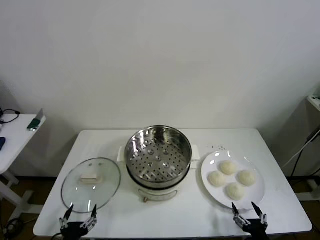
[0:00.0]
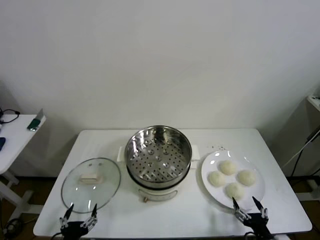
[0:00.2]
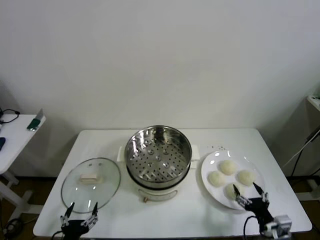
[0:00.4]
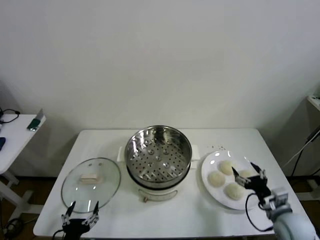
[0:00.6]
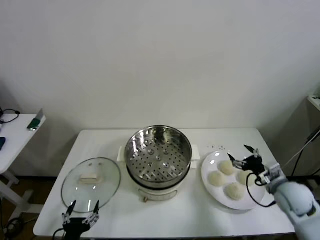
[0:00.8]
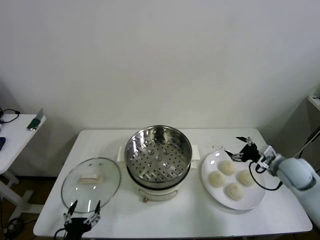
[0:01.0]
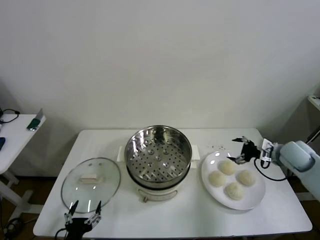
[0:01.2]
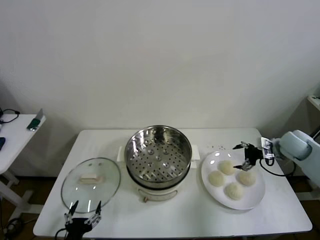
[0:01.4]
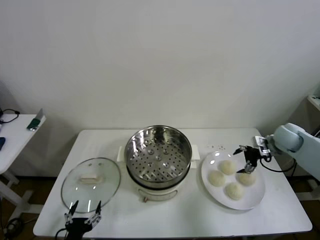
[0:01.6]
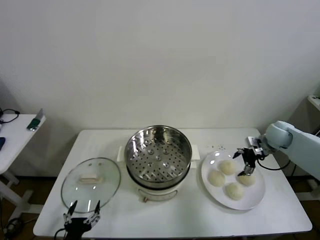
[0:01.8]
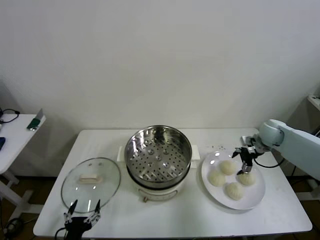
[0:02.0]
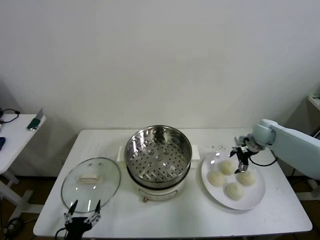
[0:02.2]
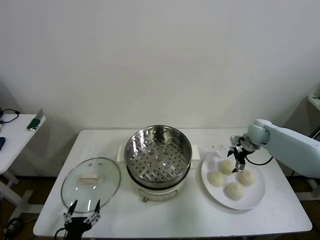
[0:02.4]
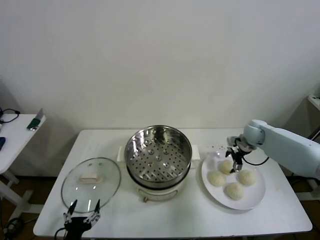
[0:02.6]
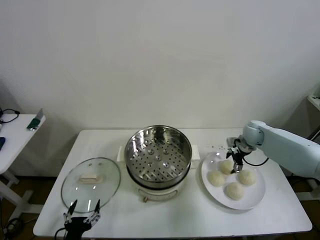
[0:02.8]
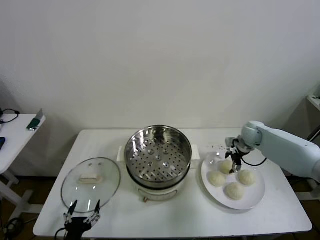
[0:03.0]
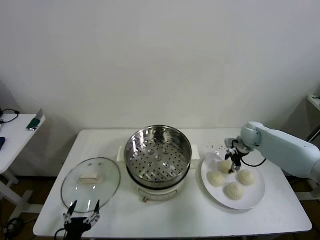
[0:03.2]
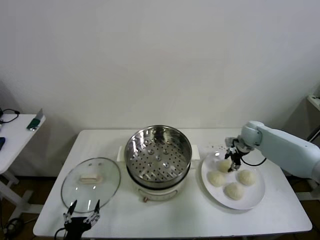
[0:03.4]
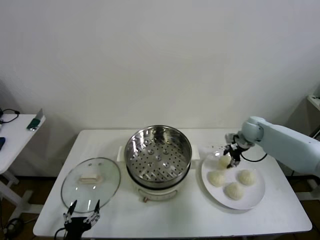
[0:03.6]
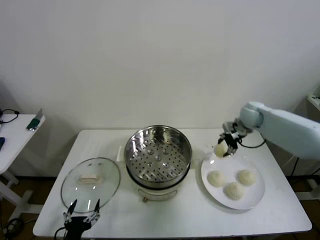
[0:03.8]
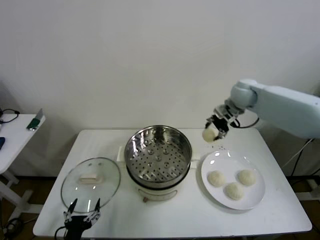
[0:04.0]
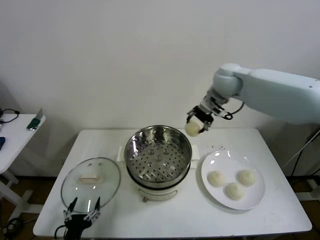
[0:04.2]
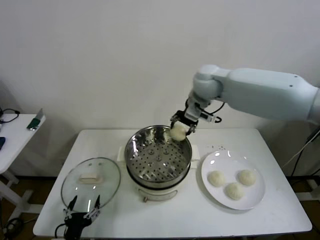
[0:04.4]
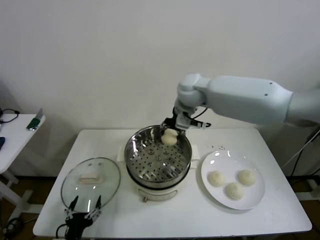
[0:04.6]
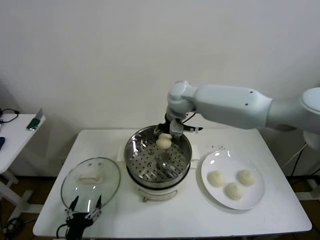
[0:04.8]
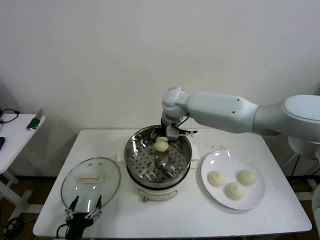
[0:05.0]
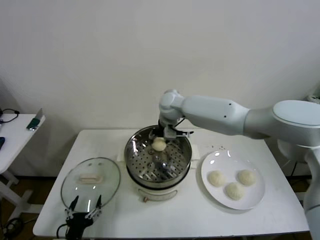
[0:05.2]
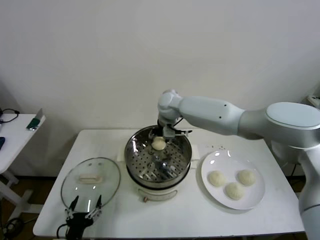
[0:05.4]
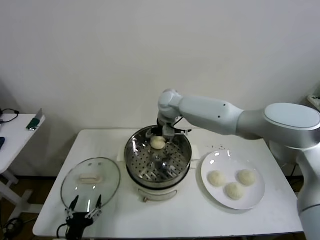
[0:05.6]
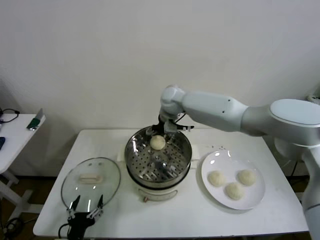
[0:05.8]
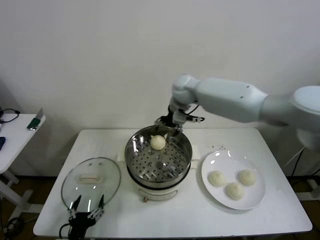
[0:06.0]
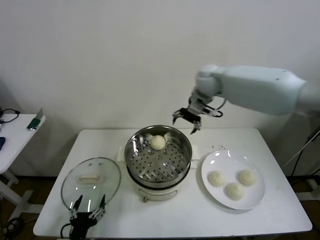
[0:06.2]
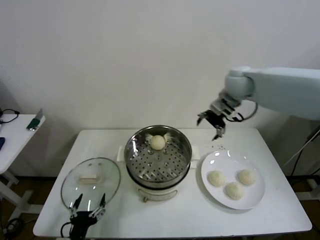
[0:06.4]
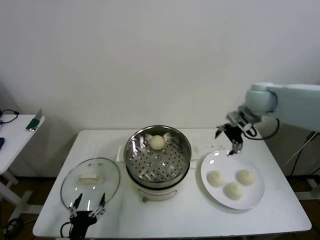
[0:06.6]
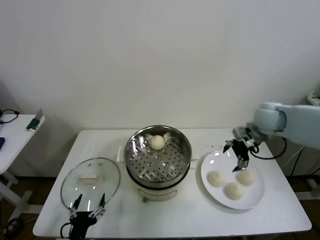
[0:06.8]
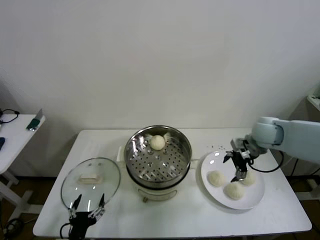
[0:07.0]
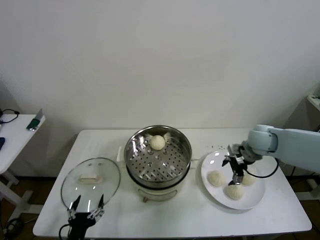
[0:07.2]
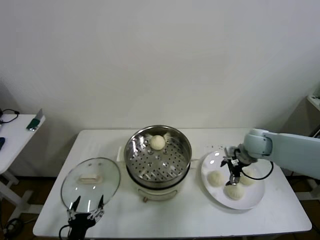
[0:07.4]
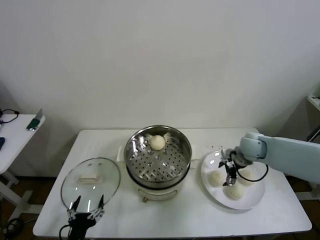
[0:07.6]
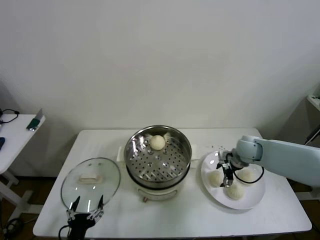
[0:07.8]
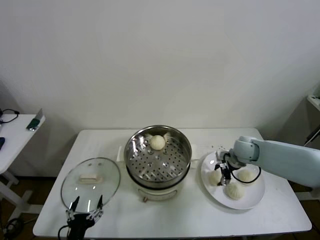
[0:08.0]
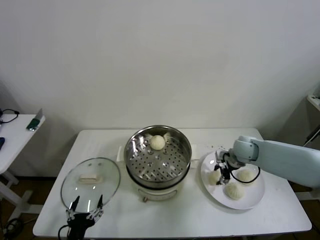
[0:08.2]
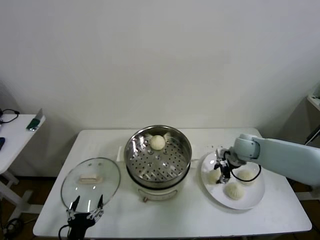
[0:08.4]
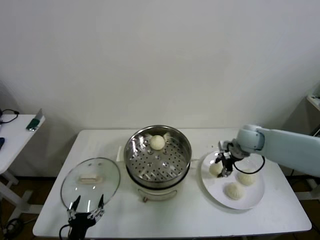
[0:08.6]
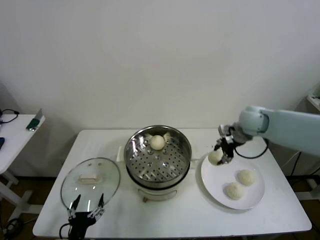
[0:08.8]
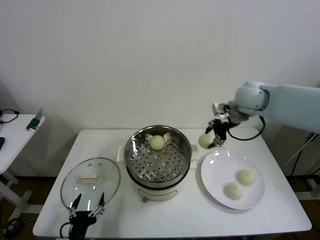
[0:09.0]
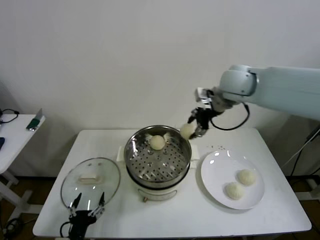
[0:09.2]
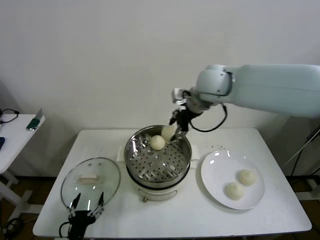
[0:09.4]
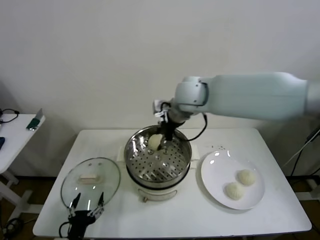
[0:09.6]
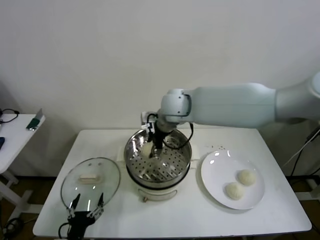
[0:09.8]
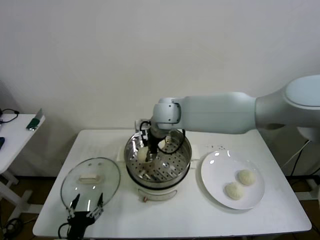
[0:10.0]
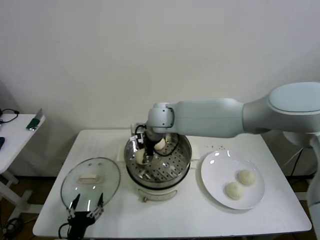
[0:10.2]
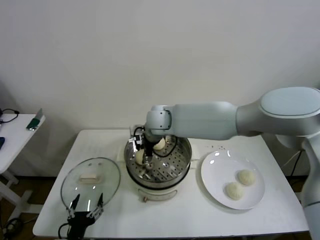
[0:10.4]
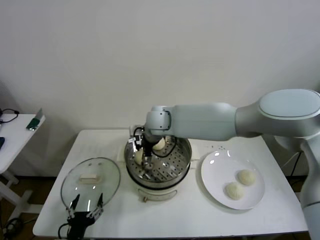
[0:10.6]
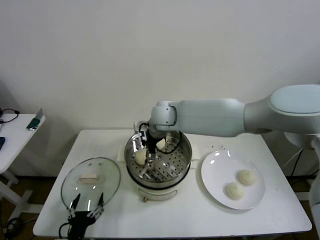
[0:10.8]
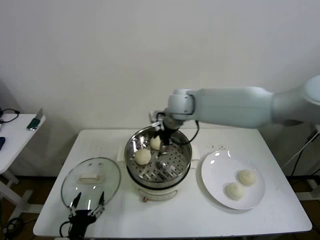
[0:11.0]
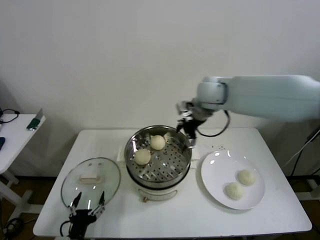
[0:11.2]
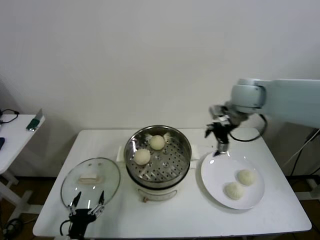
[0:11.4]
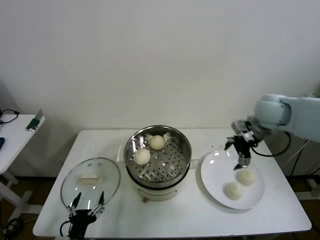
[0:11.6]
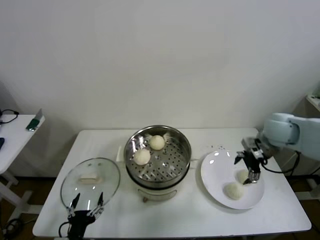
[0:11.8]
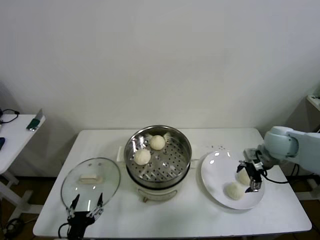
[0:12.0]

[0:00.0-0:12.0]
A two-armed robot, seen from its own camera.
Step, 0:00.0 to 0:03.2: Grasp the baozi in the plate with right gripper.
Step, 0:03.4 to 0:05.6: Place the baozi on the steamer with right gripper.
Step, 0:06.0 to 0:08.0: Grasp the baozi in the plate with right gripper.
Step, 0:08.2 to 0:10.6: Place the baozi on the steamer with right gripper.
0:01.6 to 0:03.0: The right gripper is displaced to the left and forward by some 10 cm, and closes its fingers.
0:03.0 to 0:04.4: The right gripper is displaced to the left and upward by approximately 35 cm, and closes.
0:04.4 to 0:06.0: The right gripper moves some 10 cm downward and comes back, and opens.
0:06.0 to 0:07.6: The right gripper heads to the right, downward and backward, covering roughly 30 cm.
0:07.6 to 0:09.0: The right gripper heads upward, covering some 20 cm, and closes.
0:09.0 to 0:10.4: The right gripper travels to the left and downward by about 30 cm.
0:10.4 to 0:12.0: The right gripper goes some 40 cm to the right, and opens.

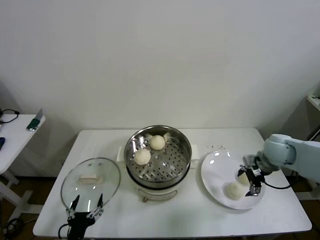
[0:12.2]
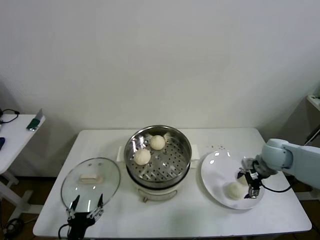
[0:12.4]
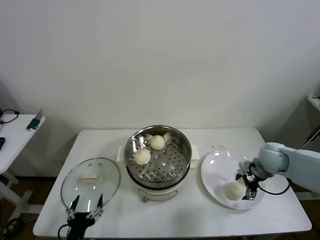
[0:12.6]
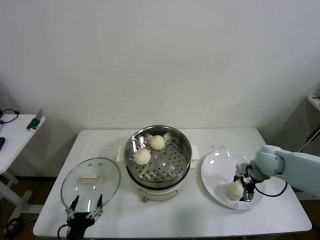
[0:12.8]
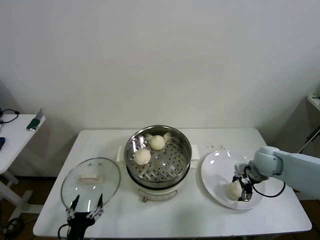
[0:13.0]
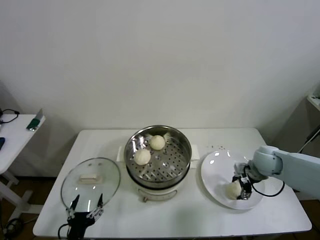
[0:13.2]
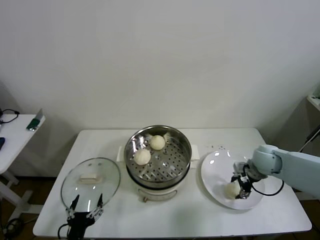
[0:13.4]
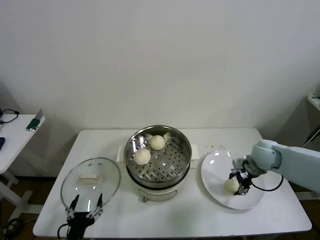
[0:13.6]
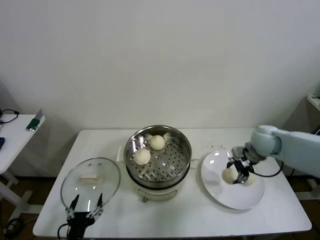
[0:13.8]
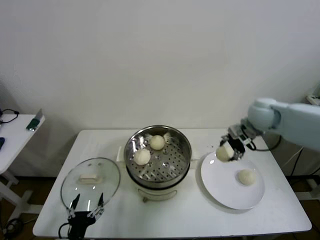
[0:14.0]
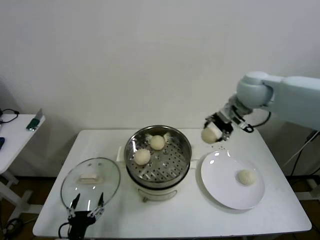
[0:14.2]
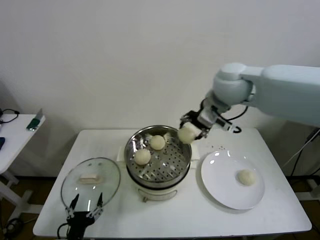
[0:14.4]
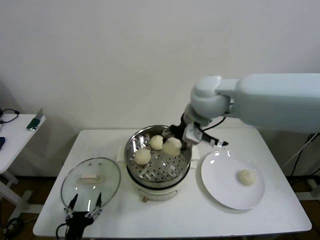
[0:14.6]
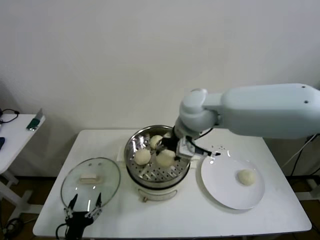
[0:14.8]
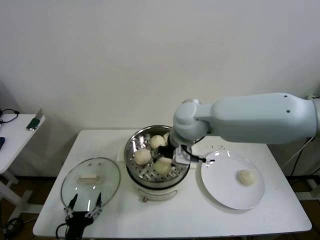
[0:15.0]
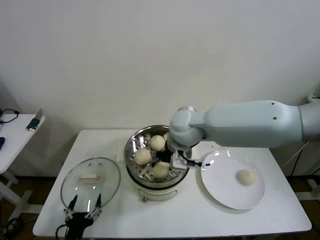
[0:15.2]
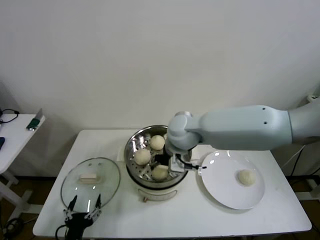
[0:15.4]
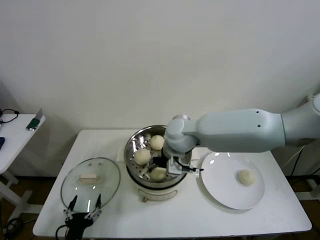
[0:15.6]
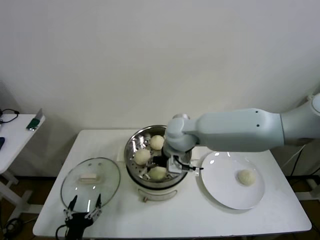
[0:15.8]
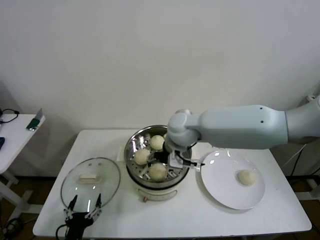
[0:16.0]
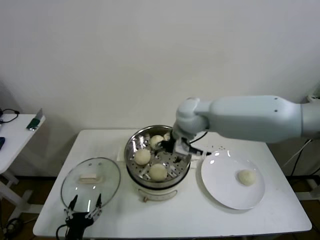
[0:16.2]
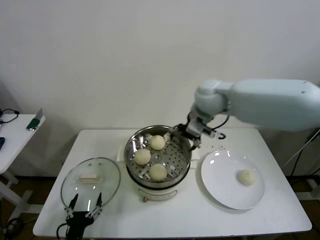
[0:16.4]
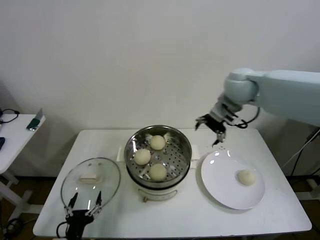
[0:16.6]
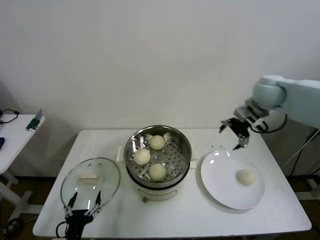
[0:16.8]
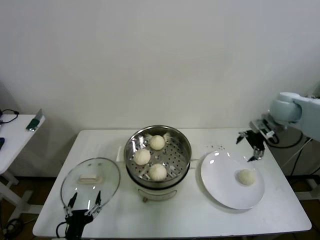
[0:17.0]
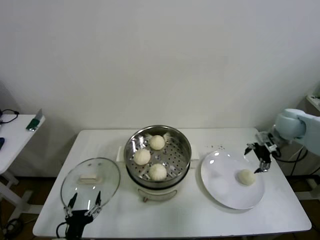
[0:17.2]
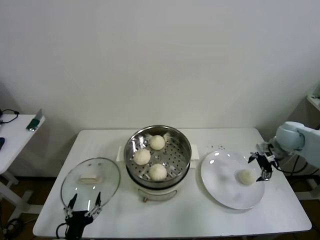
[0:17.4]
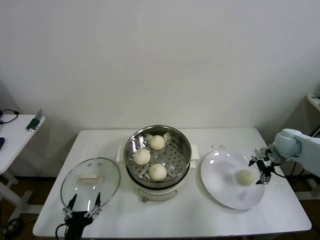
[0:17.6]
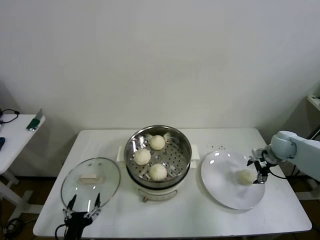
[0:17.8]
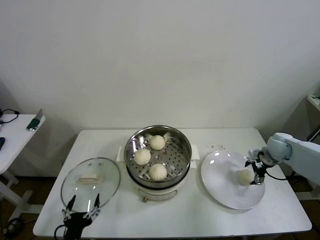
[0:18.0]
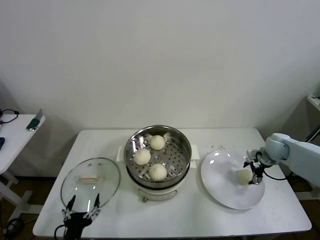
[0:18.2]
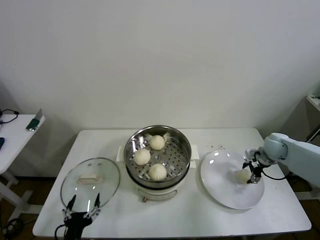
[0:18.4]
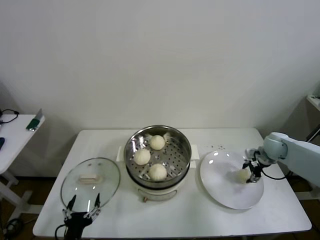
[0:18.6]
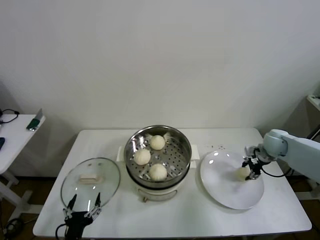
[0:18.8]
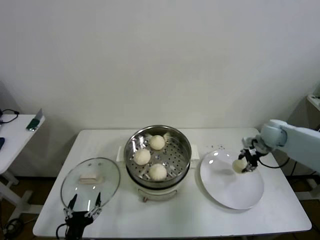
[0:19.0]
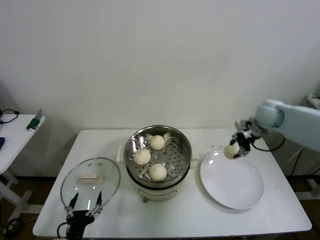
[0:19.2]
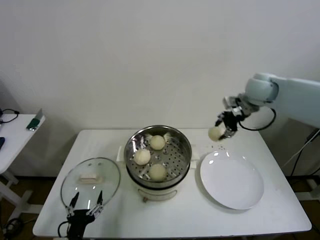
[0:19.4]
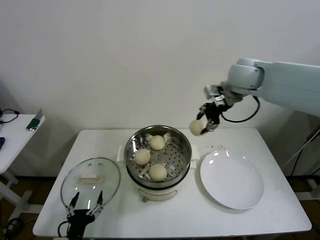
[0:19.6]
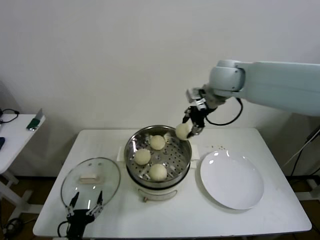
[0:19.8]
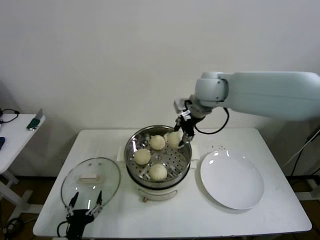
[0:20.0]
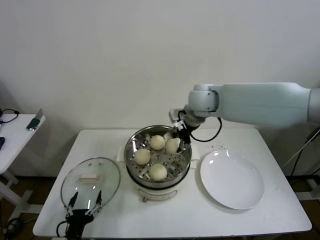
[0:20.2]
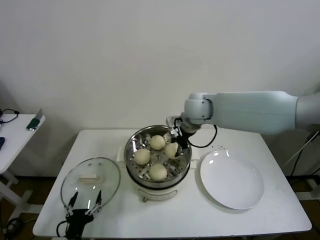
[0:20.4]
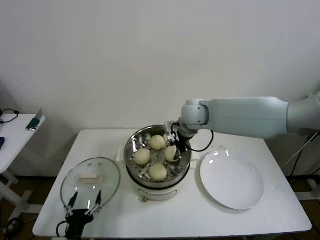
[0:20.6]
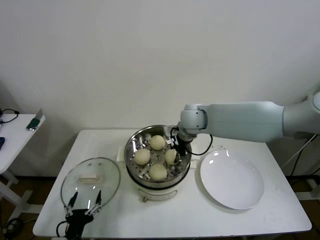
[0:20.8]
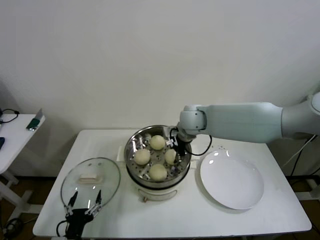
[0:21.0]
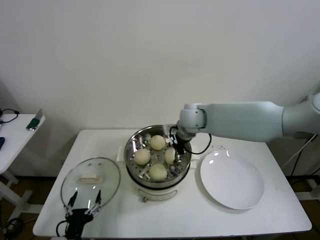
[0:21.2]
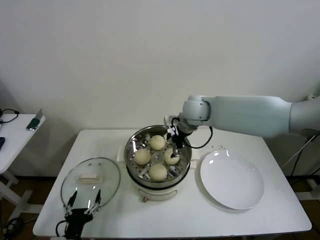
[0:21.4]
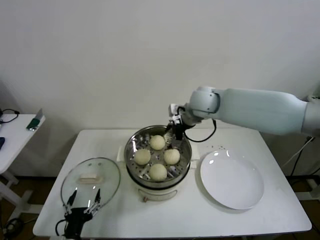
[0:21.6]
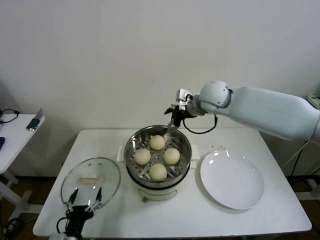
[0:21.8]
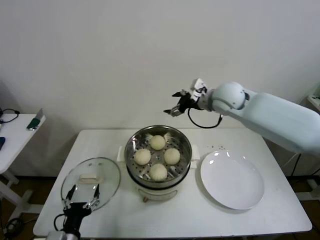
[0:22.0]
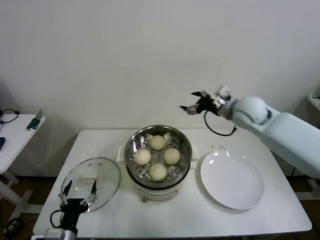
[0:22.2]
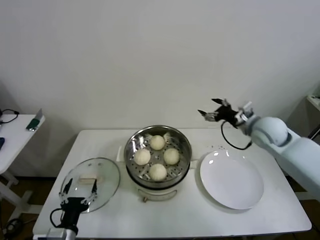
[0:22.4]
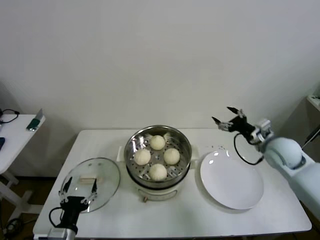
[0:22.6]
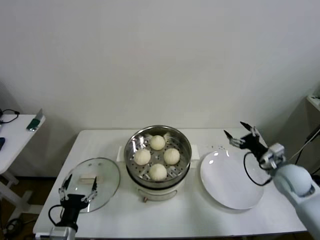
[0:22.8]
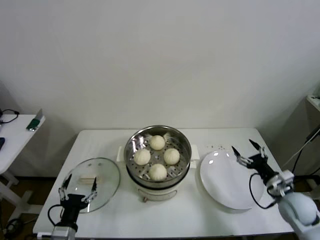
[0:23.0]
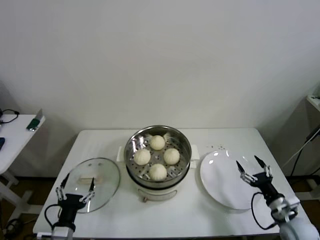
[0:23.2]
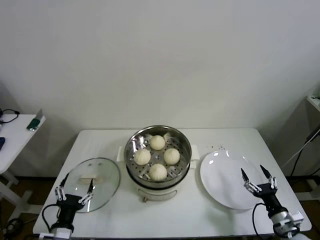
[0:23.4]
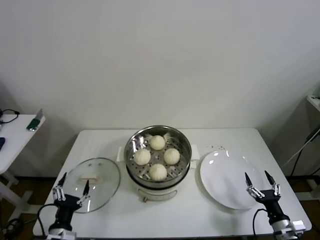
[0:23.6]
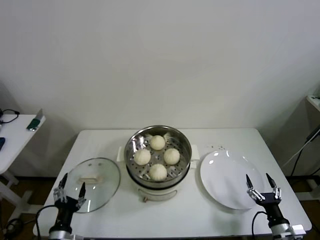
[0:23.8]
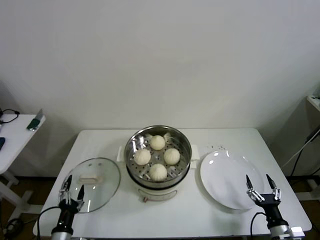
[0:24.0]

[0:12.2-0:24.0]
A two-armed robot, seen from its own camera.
Step, 0:13.6 to 0:16.0: Place the baozi on the steamer with right gripper.
Step, 0:16.2 to 0:18.6: Grasp the baozi in the plate with right gripper.
Step, 0:18.8 to 0:21.2: Place the baozi on the steamer with right gripper.
0:12.2 to 0:13.6: The right gripper closes.
0:13.6 to 0:15.2: The right gripper moves to the left and upward, about 30 cm.
0:15.2 to 0:16.6: The right gripper goes some 20 cm to the right, forward and upward, and opens up.
0:16.6 to 0:18.2: The right gripper goes roughly 30 cm downward and to the right.
0:18.2 to 0:19.6: The right gripper is displaced upward and to the left by approximately 35 cm, and closes up.
0:19.6 to 0:21.0: The right gripper heads downward and to the left, covering some 20 cm.
0:21.0 to 0:22.6: The right gripper shifts some 25 cm to the right, and opens.
0:22.6 to 0:24.0: The right gripper is displaced backward and downward by some 35 cm. Meanwhile the left gripper shifts roughly 5 cm downward.
